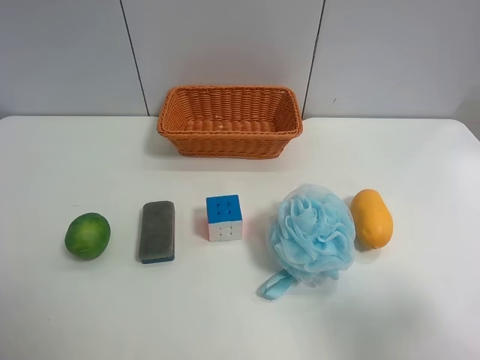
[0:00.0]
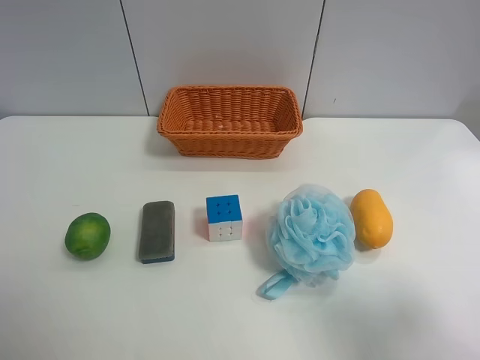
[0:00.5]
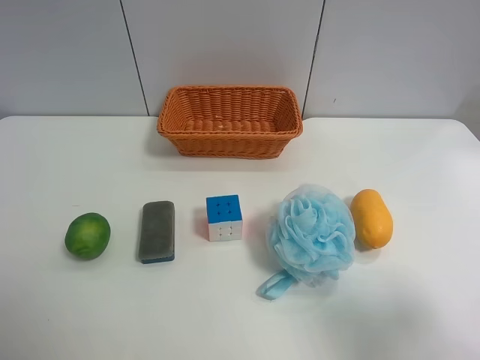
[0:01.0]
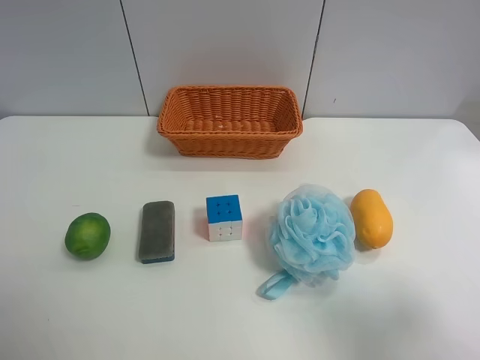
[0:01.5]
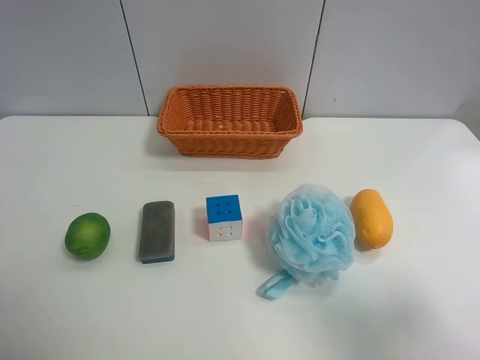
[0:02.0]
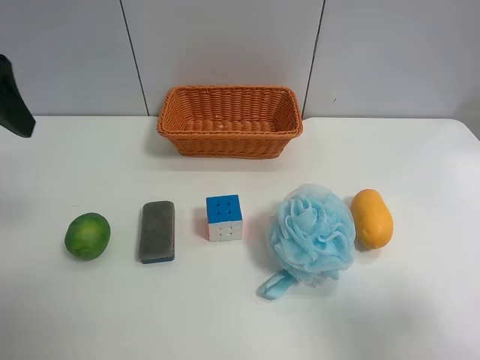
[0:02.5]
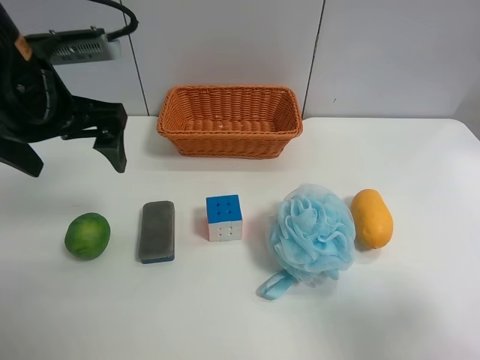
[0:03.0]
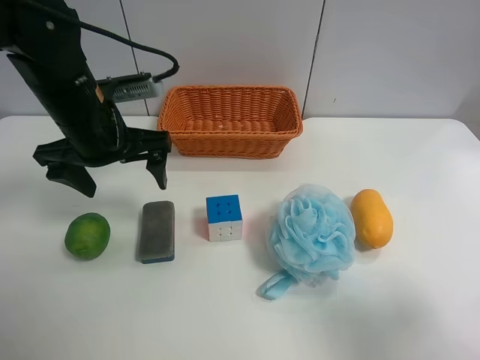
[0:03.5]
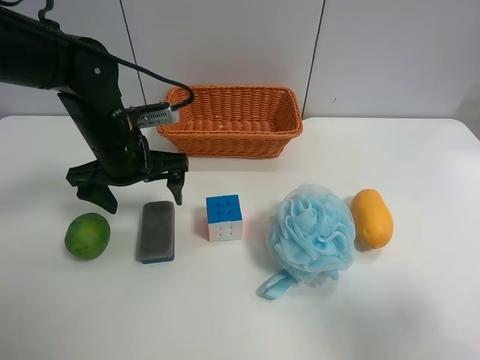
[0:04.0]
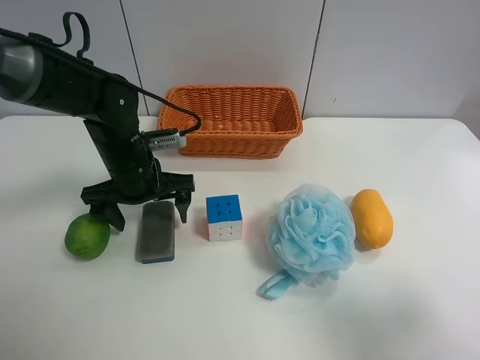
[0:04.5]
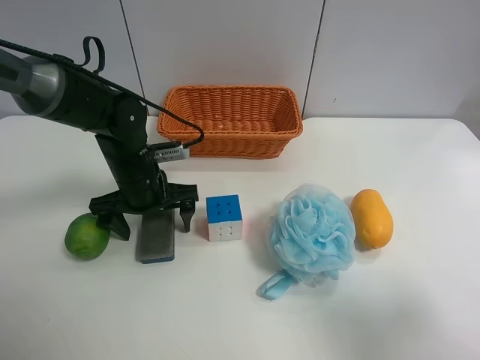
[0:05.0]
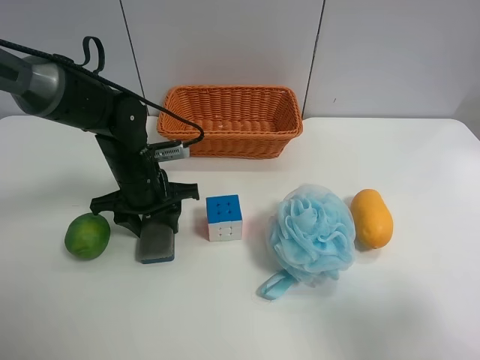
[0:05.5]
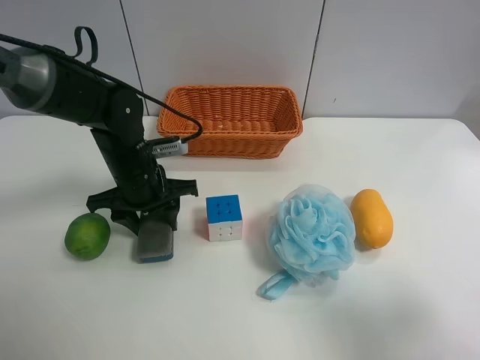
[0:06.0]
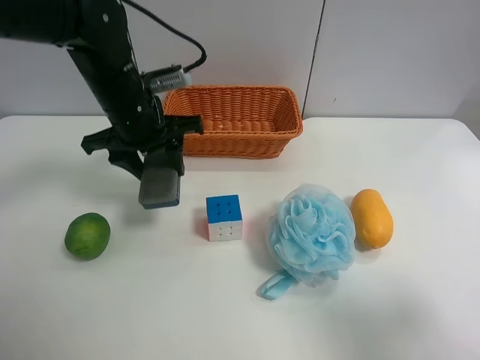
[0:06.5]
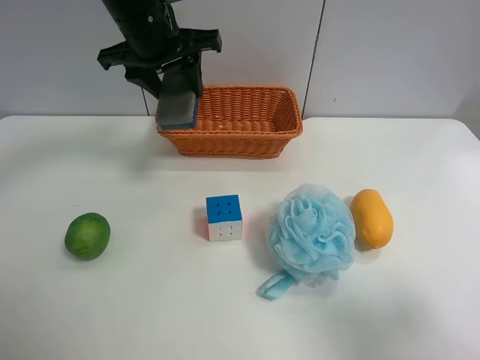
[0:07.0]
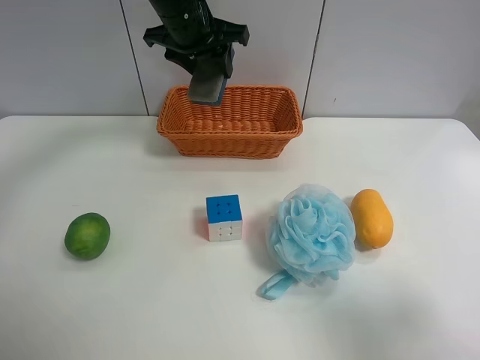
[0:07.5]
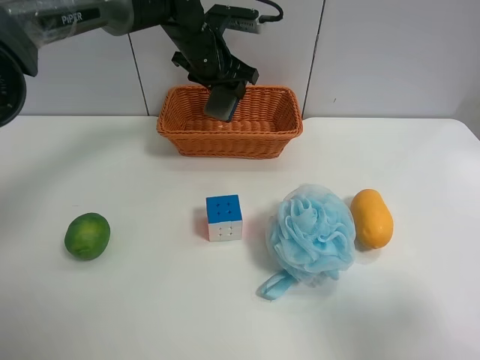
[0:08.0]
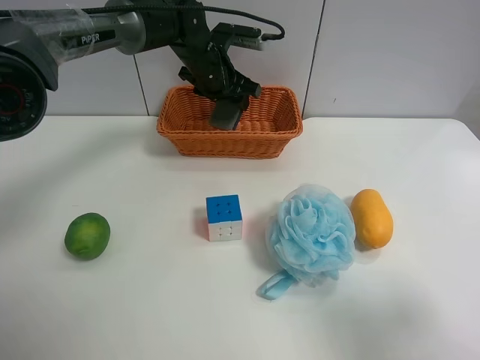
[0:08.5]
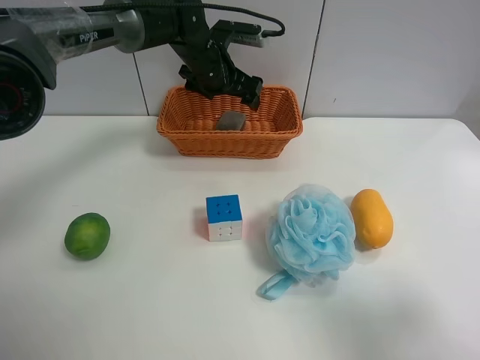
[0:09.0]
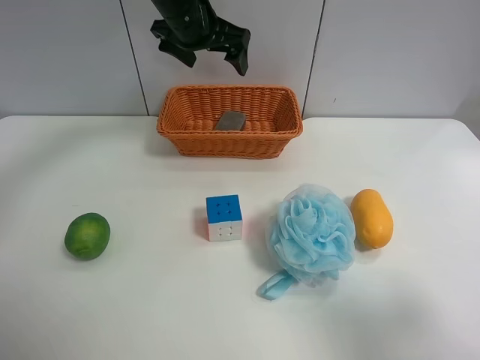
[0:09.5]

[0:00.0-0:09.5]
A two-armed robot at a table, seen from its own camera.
Task of the whole recording: use the left gripper to grab items from the table and place them in the basket.
Step, 0:00.0 to 0:05.0: Grasp the chalkboard eraser with the left gripper.
Step, 0:05.5 to 0:08.5: Place the chalkboard eraser into the basket with the left gripper.
0:02.0 to 0:04.0: The left gripper is displaced downward, forward and to the right by approximately 30 cm.
0:04.0 to 0:05.5: The left gripper heads downward, covering roughly 5 cm, and closes up.
0:05.5 to 0:07.5: The left gripper travels upward and forward by some 20 cm.
0:07.5 to 0:09.5: The left gripper goes downward and returns, about 10 cm each way, and opens its fingers.

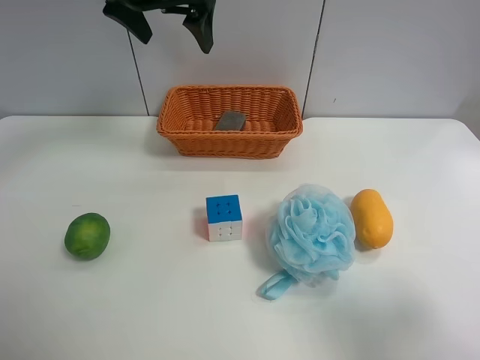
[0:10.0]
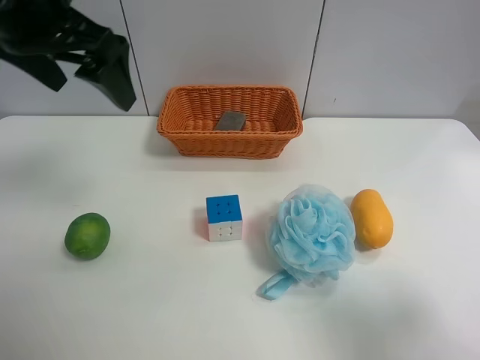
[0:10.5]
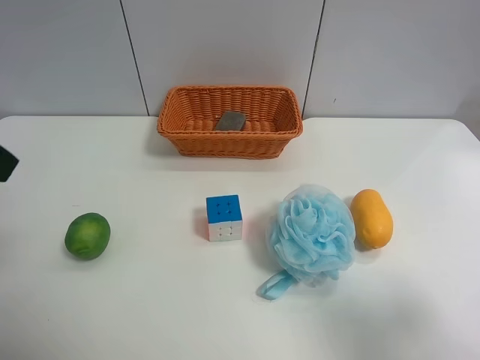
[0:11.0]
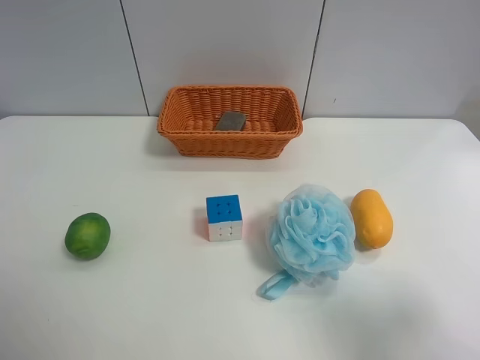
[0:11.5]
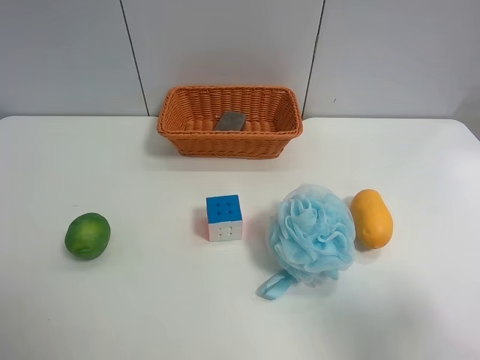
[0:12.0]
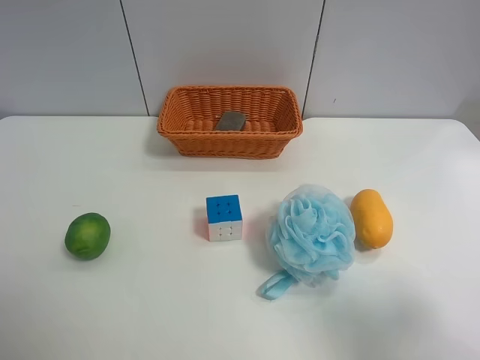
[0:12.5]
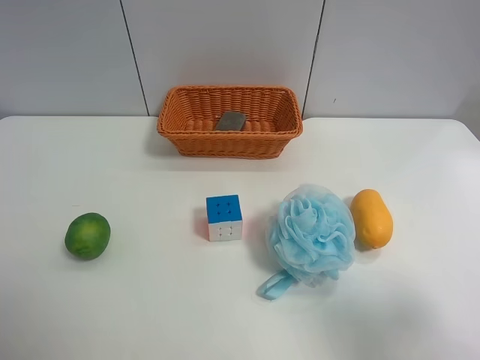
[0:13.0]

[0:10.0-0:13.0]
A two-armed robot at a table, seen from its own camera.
Task of the whole recording: use the left gripper to grab items from the table and place them in the basket.
0:10.0 to 0:11.5: The left gripper goes some 40 cm backward and to the left.
